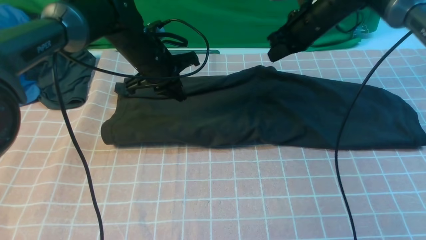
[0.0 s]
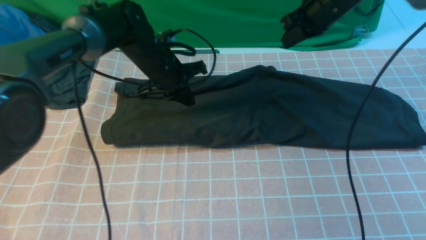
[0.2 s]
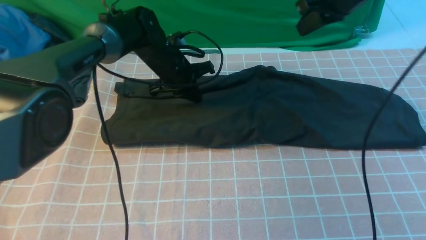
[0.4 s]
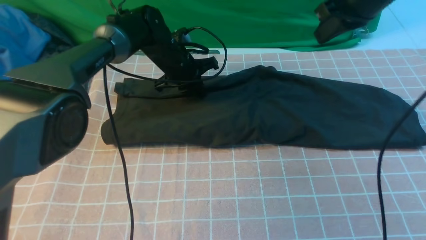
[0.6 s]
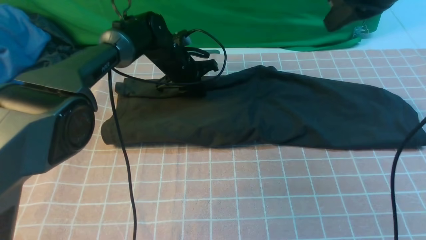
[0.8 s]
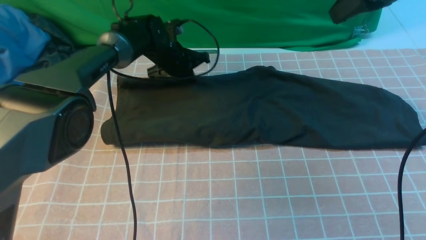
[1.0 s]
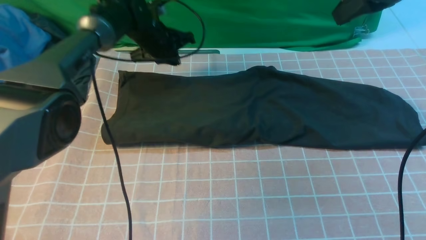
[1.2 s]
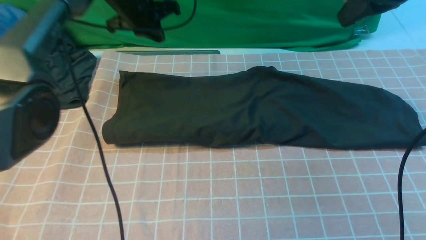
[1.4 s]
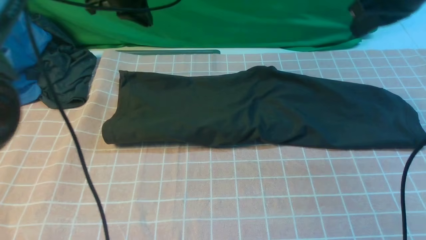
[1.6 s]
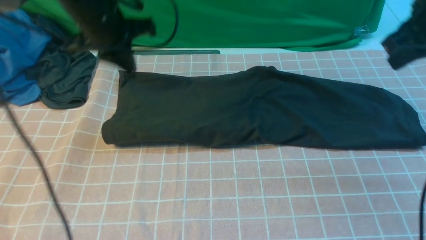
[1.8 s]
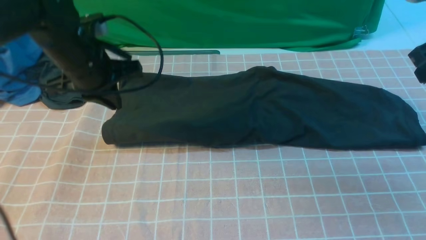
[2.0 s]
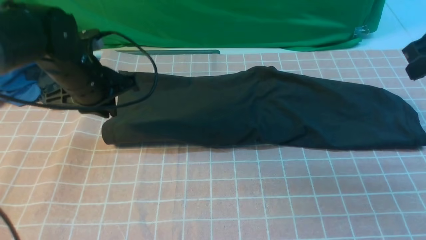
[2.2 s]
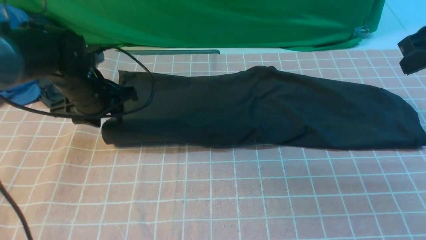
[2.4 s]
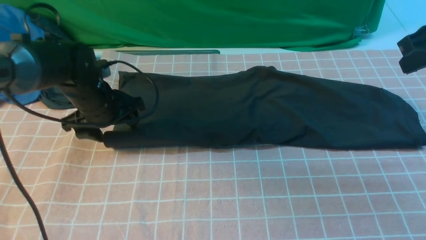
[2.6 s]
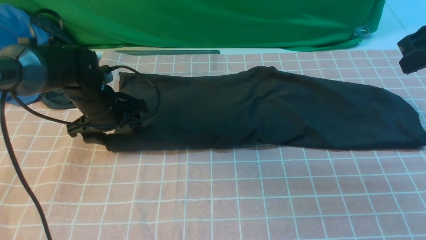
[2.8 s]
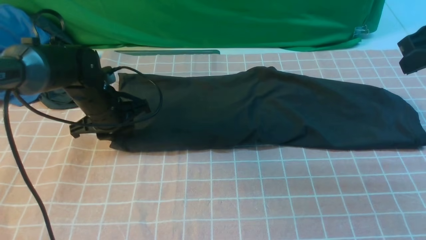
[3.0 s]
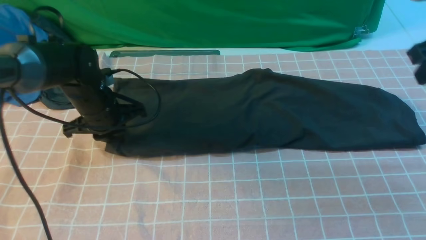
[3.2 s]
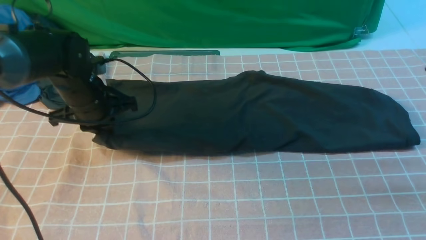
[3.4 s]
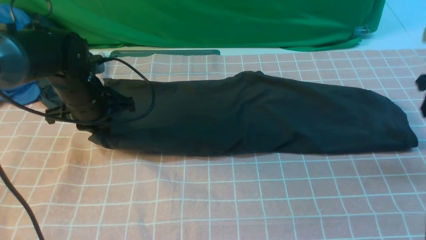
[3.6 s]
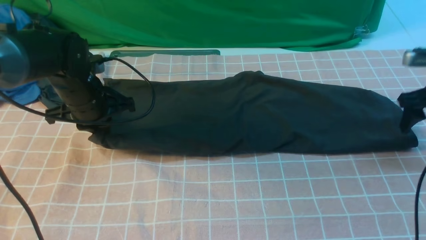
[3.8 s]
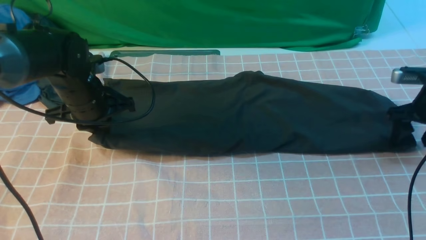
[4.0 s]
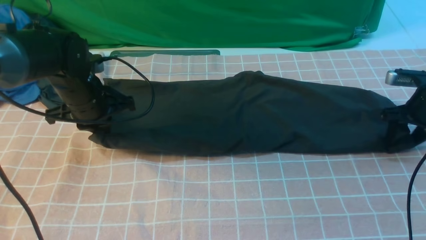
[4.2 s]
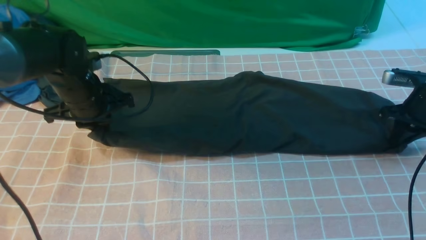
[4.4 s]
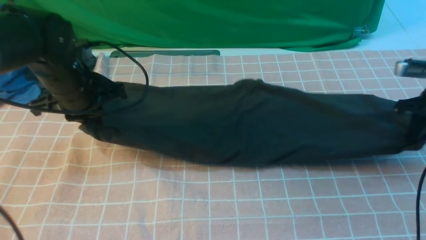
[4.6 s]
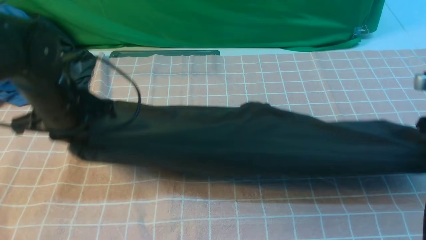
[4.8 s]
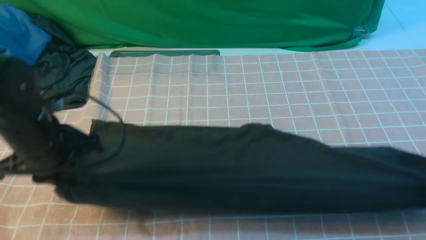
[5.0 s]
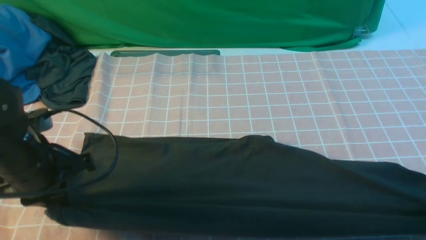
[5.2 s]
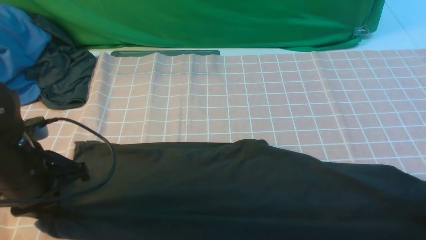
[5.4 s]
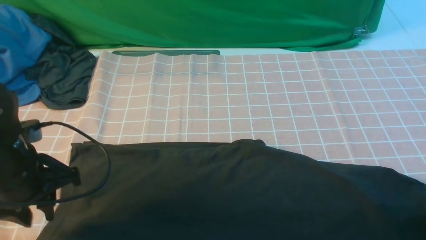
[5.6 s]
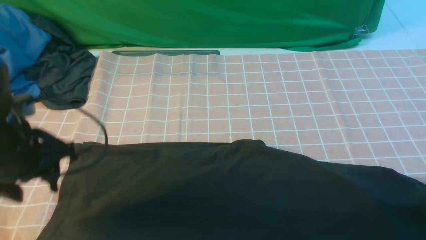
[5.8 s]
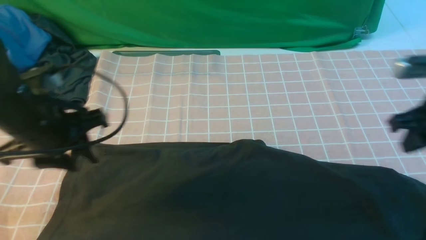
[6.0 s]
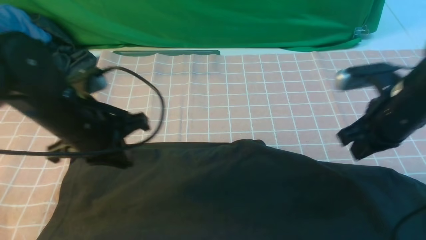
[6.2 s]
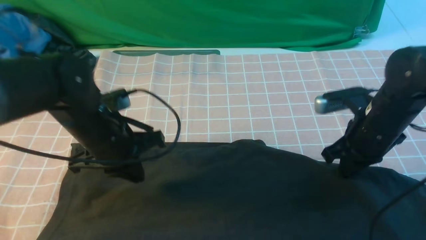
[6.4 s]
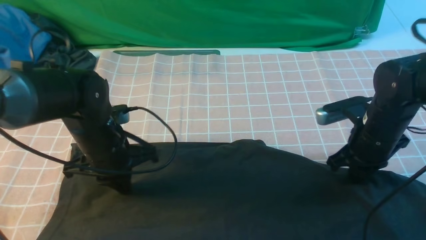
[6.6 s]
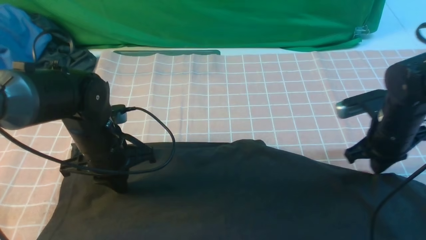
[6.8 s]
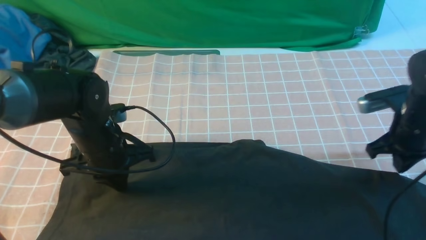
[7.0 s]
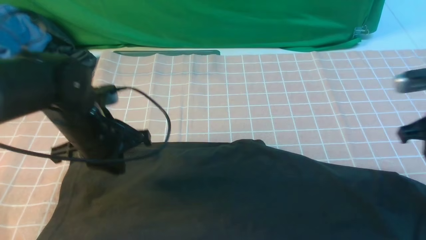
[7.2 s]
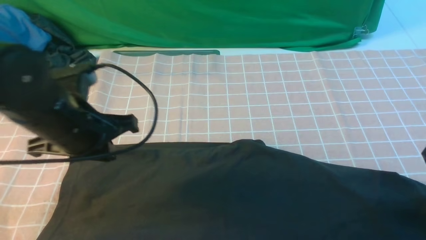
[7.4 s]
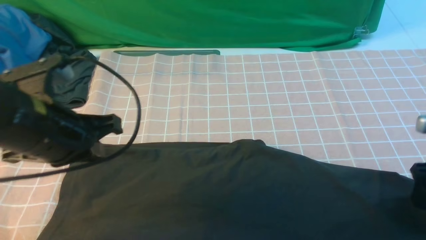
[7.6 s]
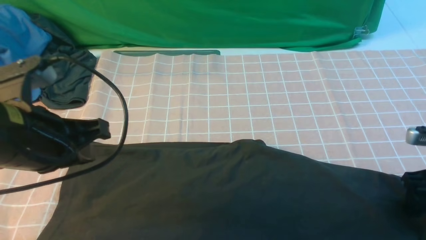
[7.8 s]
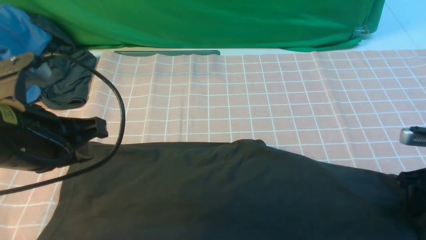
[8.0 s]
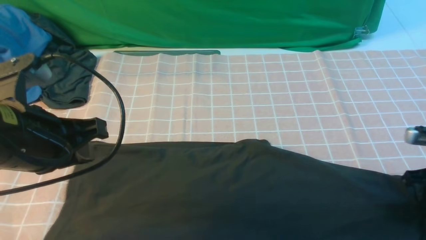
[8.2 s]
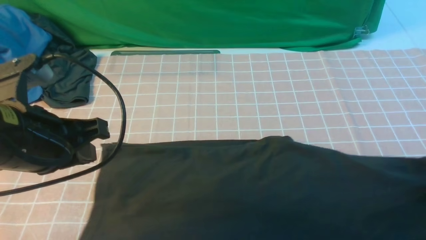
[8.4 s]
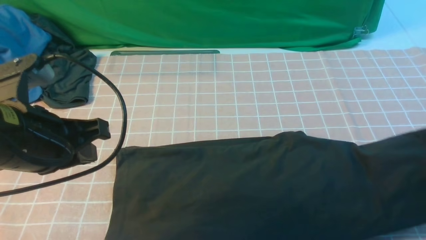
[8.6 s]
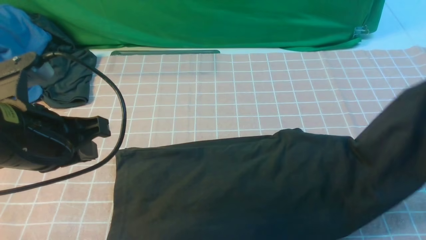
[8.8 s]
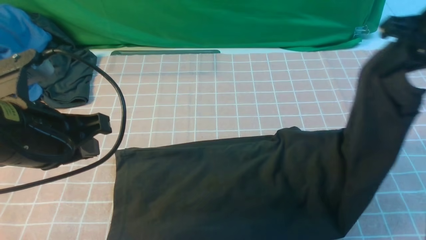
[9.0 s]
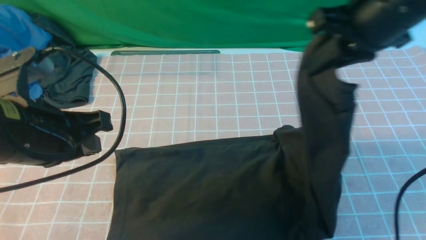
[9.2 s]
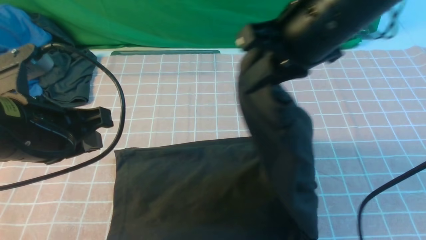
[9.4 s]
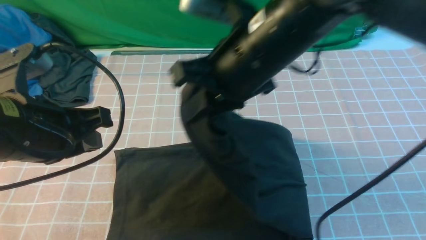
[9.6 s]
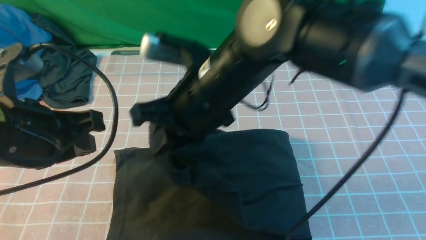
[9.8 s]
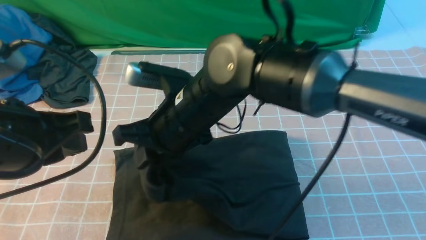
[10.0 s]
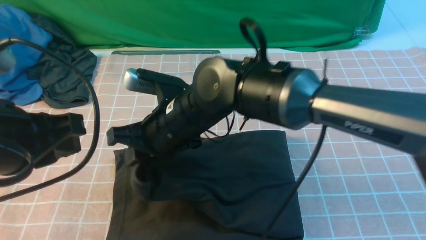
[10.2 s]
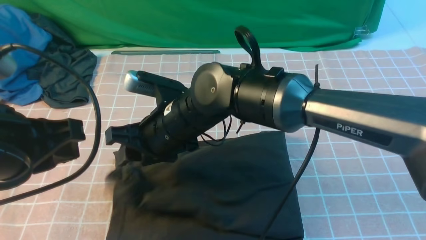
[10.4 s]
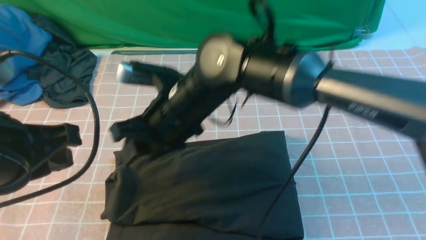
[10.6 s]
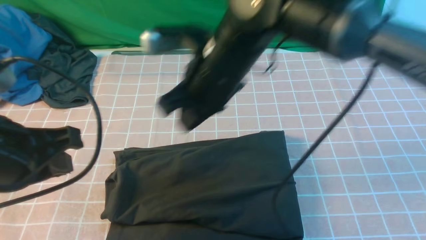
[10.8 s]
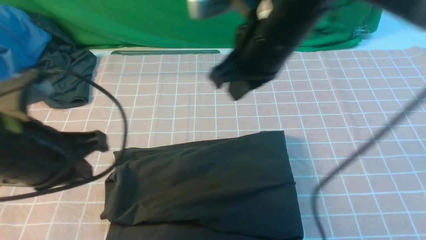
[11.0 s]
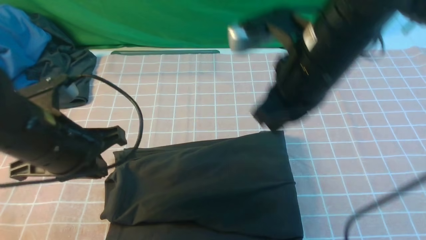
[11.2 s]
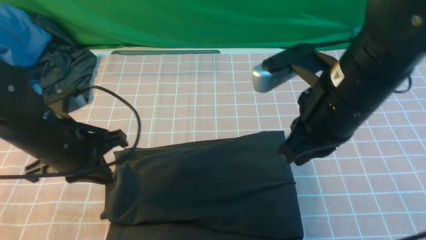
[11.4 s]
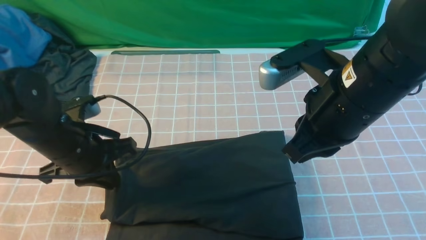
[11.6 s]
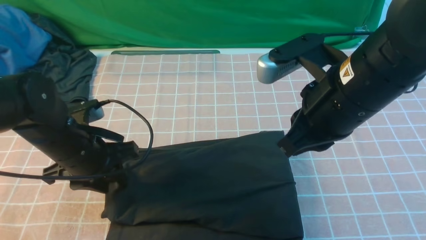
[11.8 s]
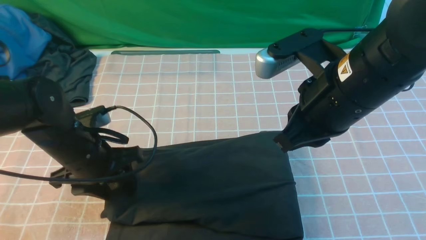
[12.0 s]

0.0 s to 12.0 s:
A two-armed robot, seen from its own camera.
Step, 1.4 to 8.4 s: use the right arm to clamp the right edge of the fabric.
Step, 8.6 to 10.6 s: use the right arm to drag the right edge of the fabric to the left and folds it over the left edge.
0.0 to 1.6 s: The left gripper goes about 10 cm upward and to the left. The right gripper heads backward, upward and to the right, covering some 20 cm.
1.6 to 3.0 s: The left gripper heads downward and backward, covering approximately 15 cm, and opens up, while the right gripper heads to the right, covering about 5 cm.
3.0 to 4.4 s: The left gripper shifts some 5 cm upward, and closes up. The right gripper goes about 15 cm downward, and opens, then closes again.
4.4 to 6.0 s: The right gripper goes about 15 cm backward, to the left and upward. Meanwhile the left gripper is displaced backward by roughly 10 cm, and opens up.
6.0 to 7.6 s: The right gripper moves downward and to the right, roughly 10 cm, and opens. Meanwhile the left gripper moves roughly 10 cm downward and comes back, and closes its fingers.
7.6 to 9.0 s: The right gripper travels upward and to the left by roughly 20 cm, and closes its fingers.
9.0 to 10.4 s: The right gripper travels to the left and downward by approximately 35 cm, and opens up.
10.4 to 12.0 s: The left gripper shifts roughly 20 cm downward and forward, and opens. The right gripper moves to the right and upward, about 20 cm, and closes its fingers.

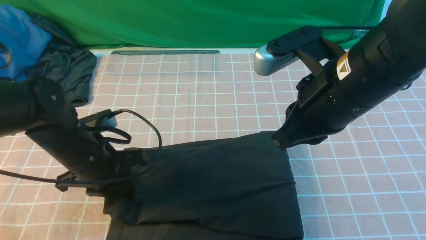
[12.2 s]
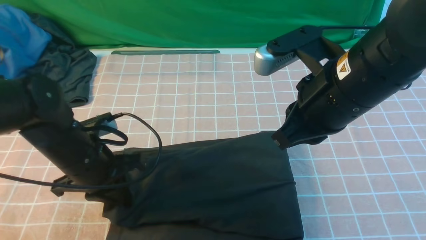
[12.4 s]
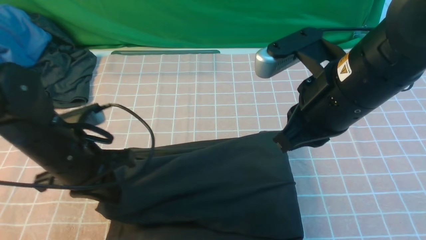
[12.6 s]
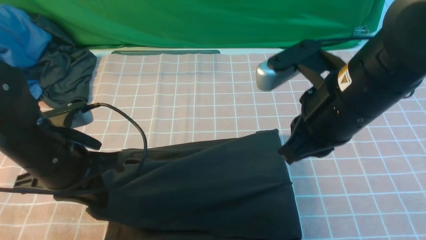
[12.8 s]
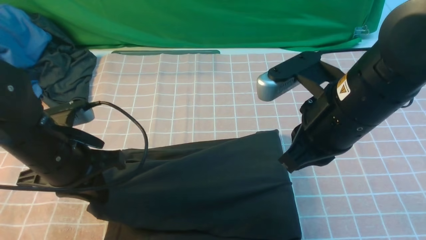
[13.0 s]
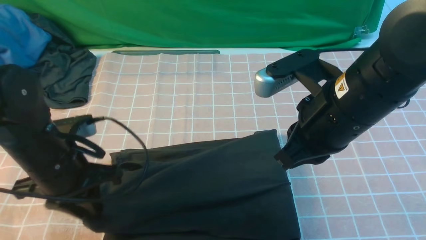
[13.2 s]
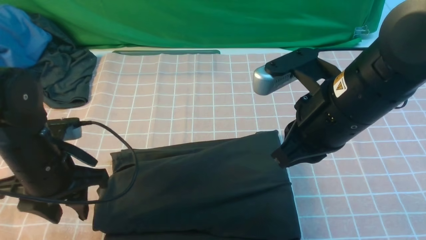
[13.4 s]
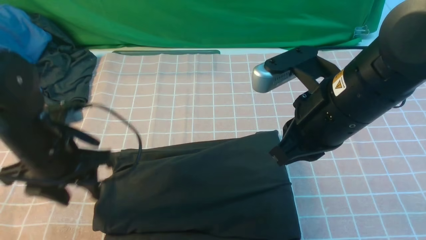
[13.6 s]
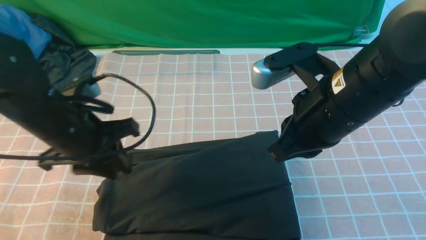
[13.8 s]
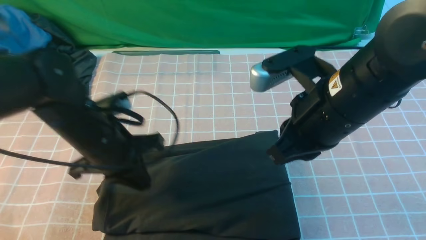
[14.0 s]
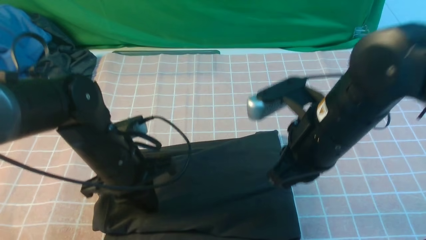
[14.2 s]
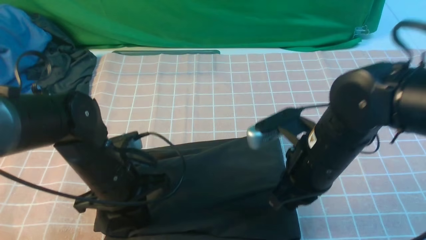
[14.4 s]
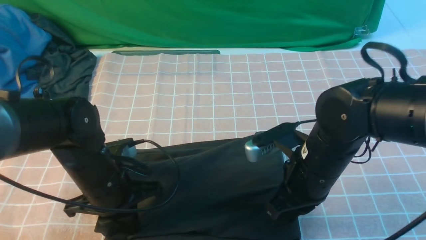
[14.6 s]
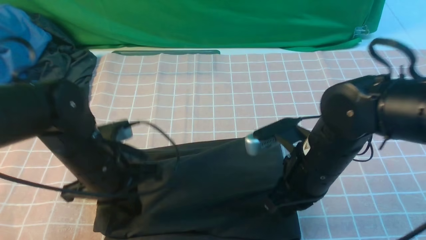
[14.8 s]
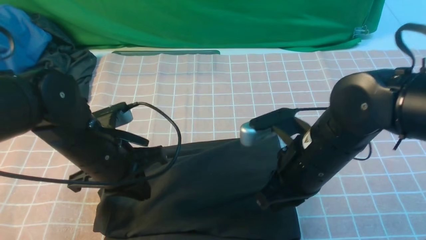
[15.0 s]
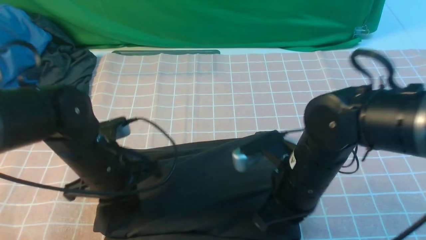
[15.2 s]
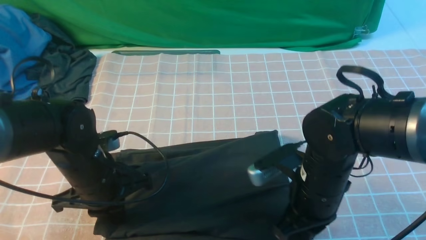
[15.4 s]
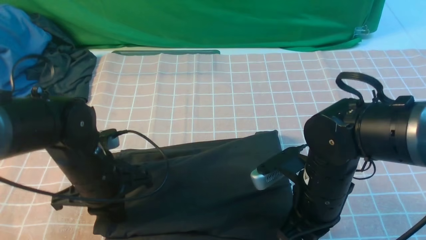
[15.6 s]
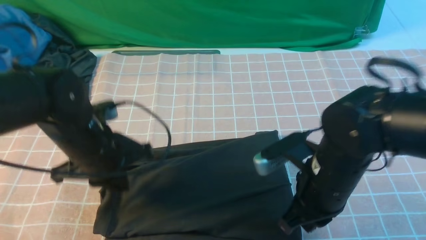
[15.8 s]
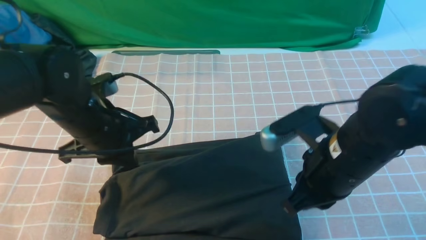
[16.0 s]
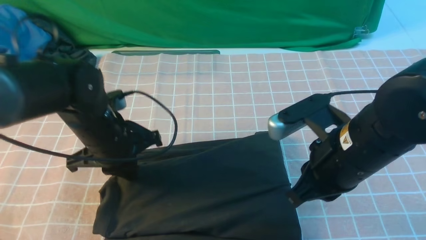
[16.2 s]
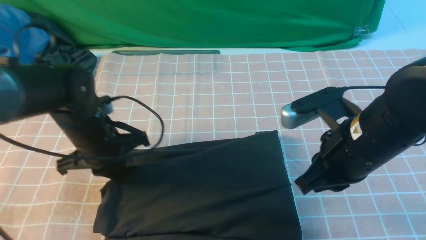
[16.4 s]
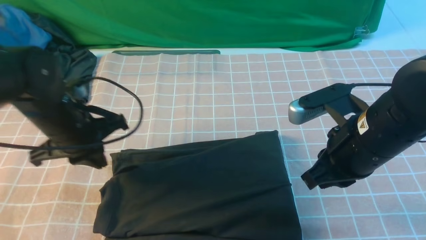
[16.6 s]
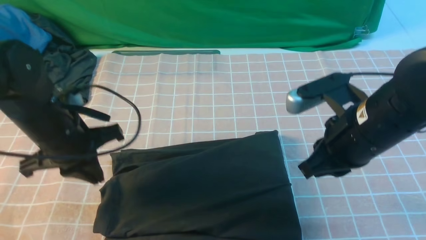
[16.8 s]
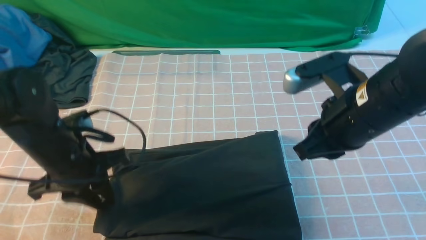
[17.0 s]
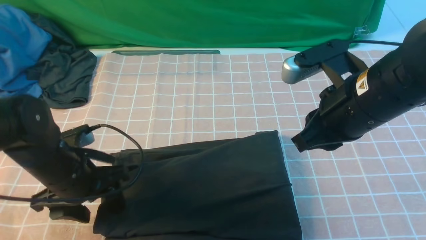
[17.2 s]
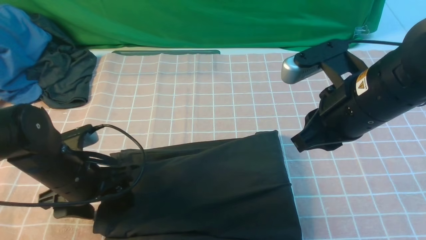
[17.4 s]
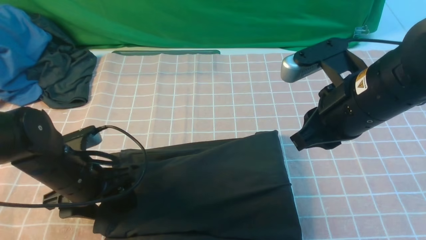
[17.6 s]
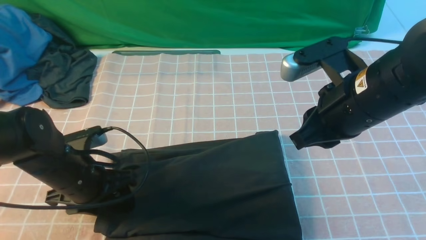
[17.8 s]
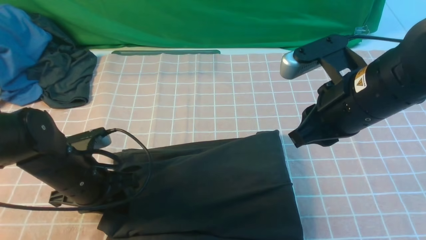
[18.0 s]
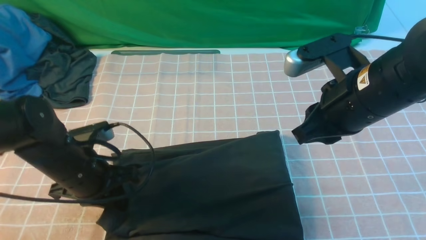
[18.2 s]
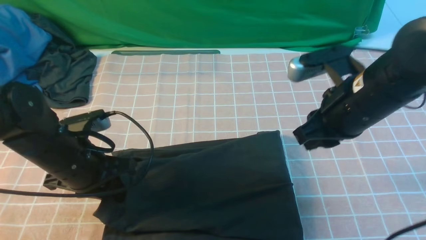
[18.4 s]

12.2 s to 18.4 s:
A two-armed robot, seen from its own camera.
12.2 to 13.8 s: The left gripper is displaced upward by roughly 5 cm.
13.8 to 15.4 s: The left gripper travels downward by some 5 cm, and closes. The right gripper heads downward, covering about 15 cm.
15.4 to 16.8 s: The left gripper changes place by some 5 cm, while the right gripper heads upward, covering roughly 10 cm.
16.8 to 18.4 s: The right gripper opens up; the left gripper opens, then closes once more.
